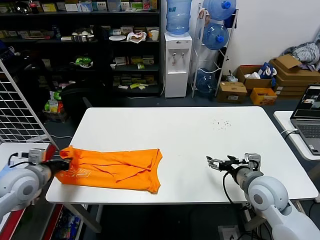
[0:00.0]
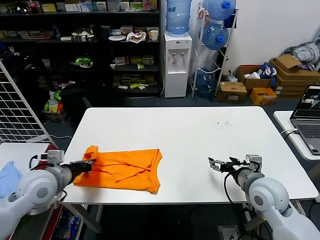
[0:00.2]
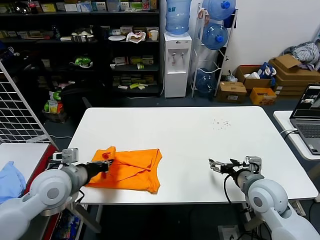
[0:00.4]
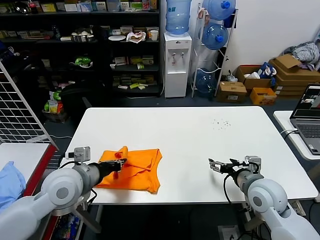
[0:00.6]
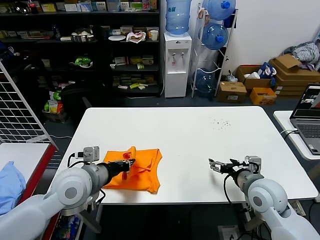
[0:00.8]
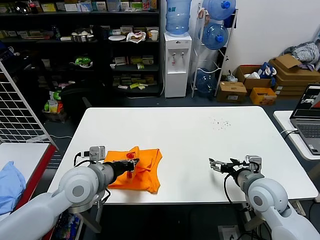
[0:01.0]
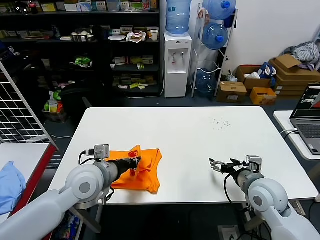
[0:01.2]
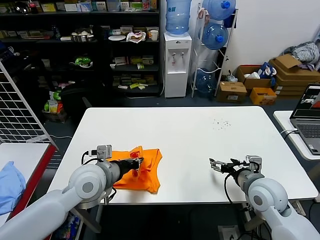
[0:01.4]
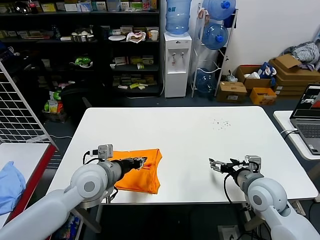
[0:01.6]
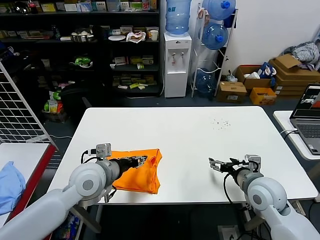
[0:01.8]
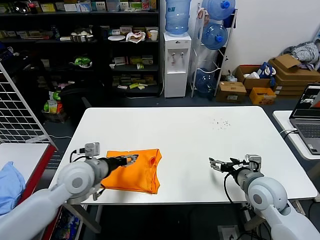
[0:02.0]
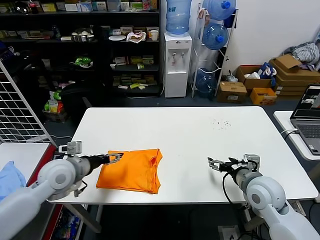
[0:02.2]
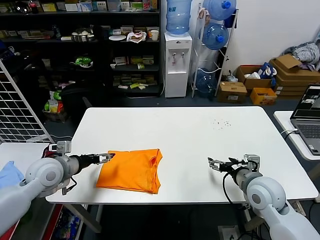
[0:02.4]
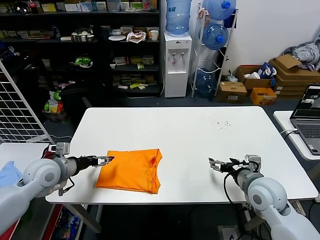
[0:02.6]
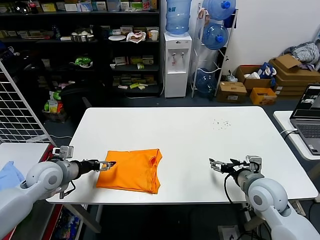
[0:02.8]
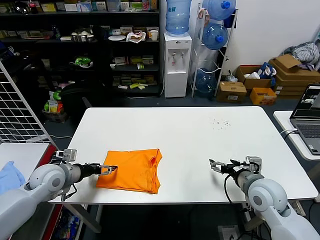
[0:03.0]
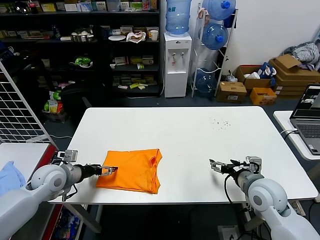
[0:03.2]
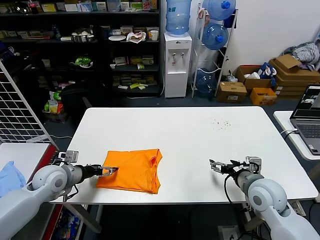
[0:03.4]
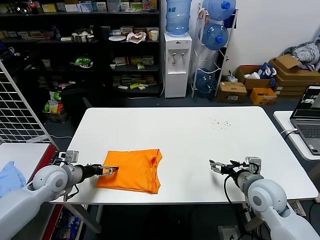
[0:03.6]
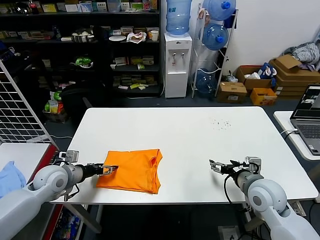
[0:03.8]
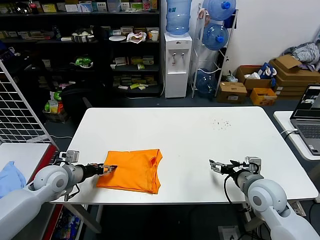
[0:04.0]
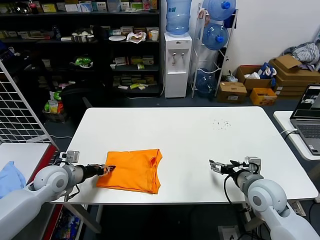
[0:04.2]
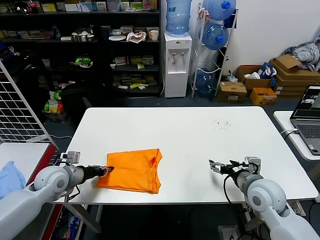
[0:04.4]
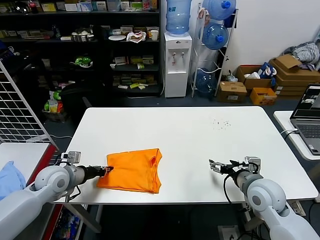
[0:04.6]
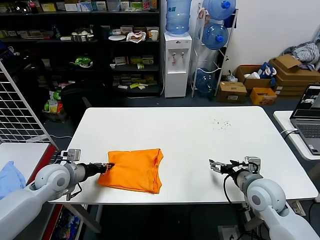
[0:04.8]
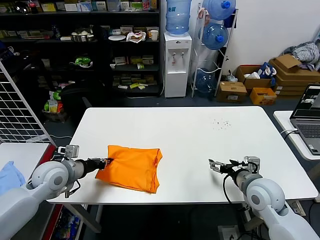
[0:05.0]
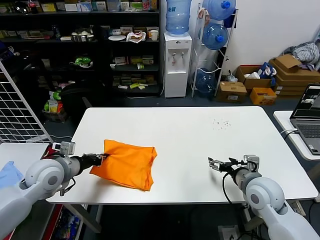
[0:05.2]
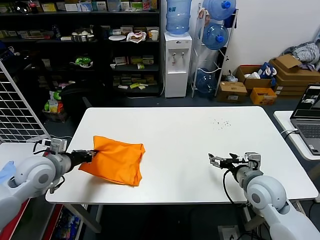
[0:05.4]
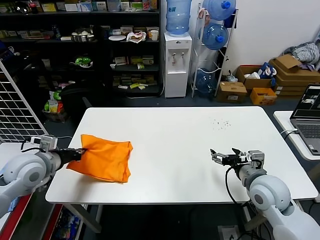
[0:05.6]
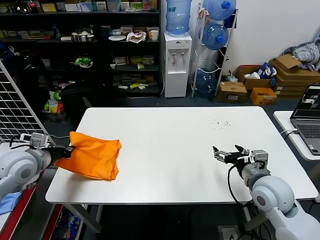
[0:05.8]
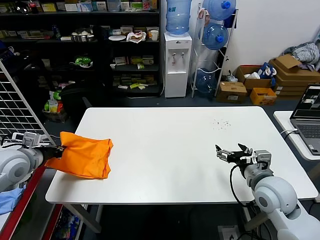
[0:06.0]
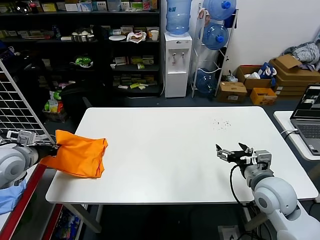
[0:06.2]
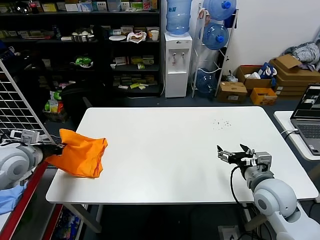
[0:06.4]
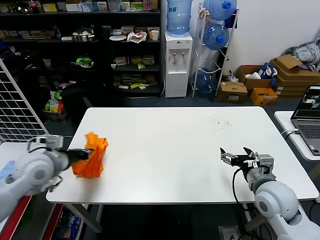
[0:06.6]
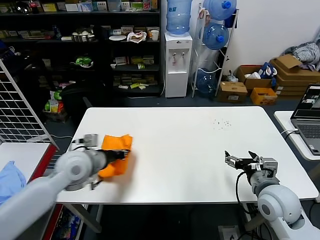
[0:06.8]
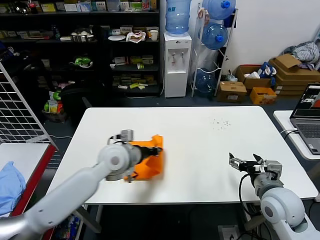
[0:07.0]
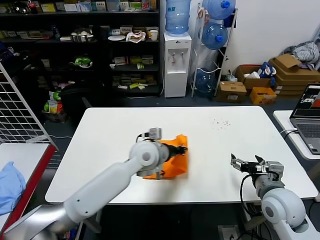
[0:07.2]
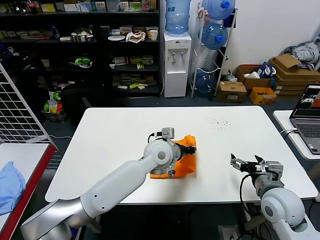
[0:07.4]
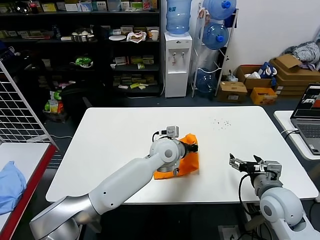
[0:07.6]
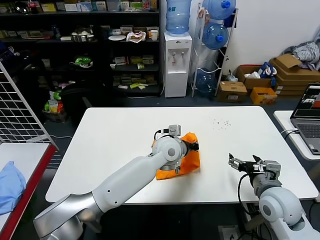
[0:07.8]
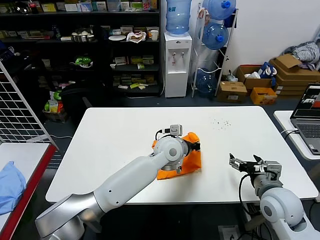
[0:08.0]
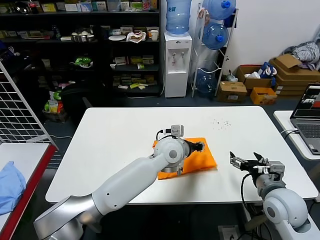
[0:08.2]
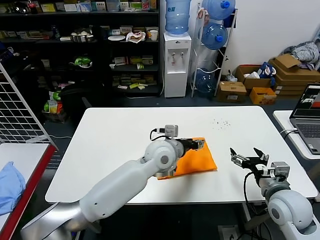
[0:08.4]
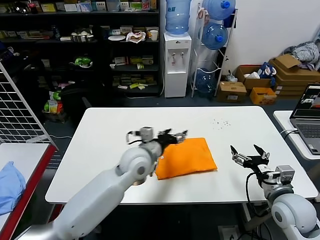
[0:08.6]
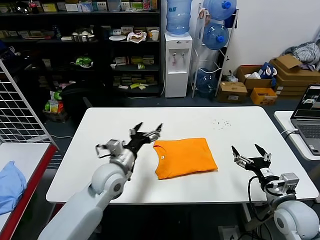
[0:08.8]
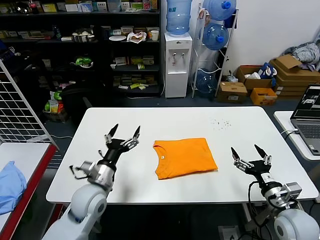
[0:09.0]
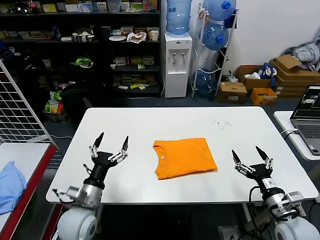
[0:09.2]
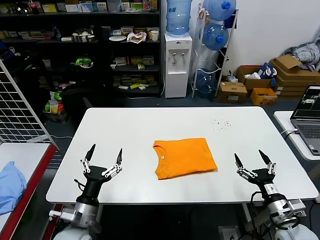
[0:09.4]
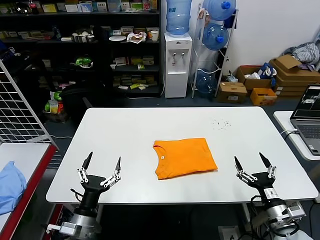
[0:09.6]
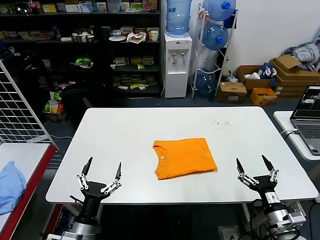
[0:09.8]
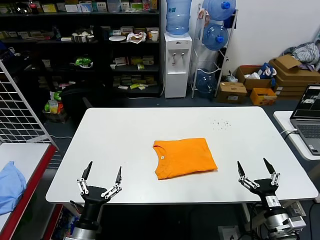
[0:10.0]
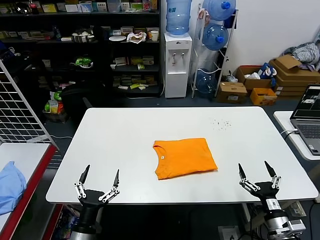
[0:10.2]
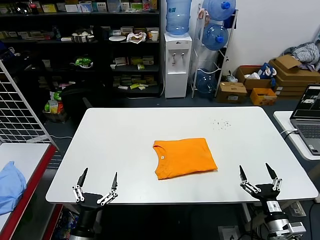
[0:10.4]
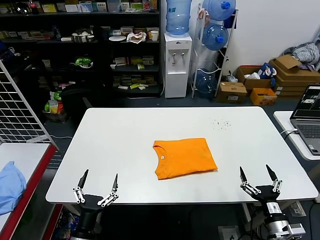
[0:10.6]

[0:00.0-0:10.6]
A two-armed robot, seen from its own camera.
Task of the whole recording: fold and organize the clothes.
Step, 0:01.6 to 0:08.0: Flip the folded clothes over with left gripper.
0:00.0 to 0:01.6: The left gripper heads to the right, covering about 20 cm.
0:01.6 to 0:03.0: The left gripper shifts about 15 cm to the left, and opens up.
0:03.0 to 0:04.6: The left gripper closes up.
0:04.6 to 0:06.0: The left gripper goes some 15 cm upward and to the left.
0:06.0 to 0:07.6: The left gripper travels to the right by about 40 cm.
0:07.6 to 0:09.0: The right gripper shifts by about 5 cm; the left gripper heads to the left and backward, covering roughly 25 cm, and opens.
0:09.0 to 0:10.6: The right gripper moves backward and downward, some 10 cm. Meanwhile the left gripper travels backward by some 20 cm.
